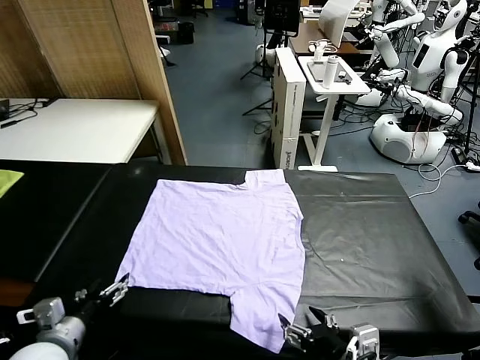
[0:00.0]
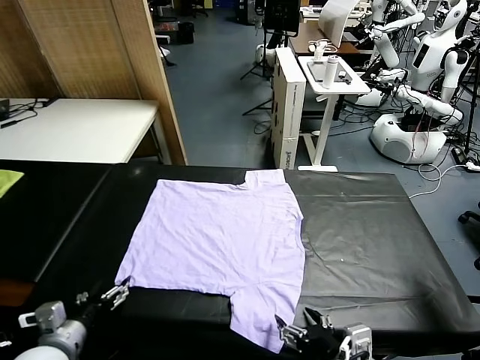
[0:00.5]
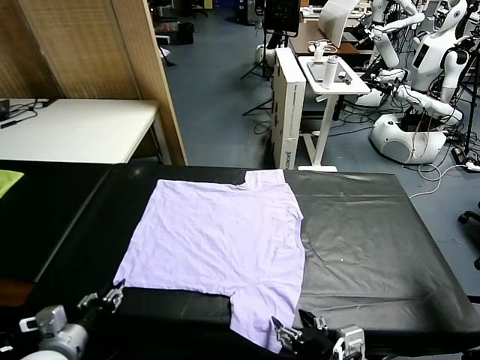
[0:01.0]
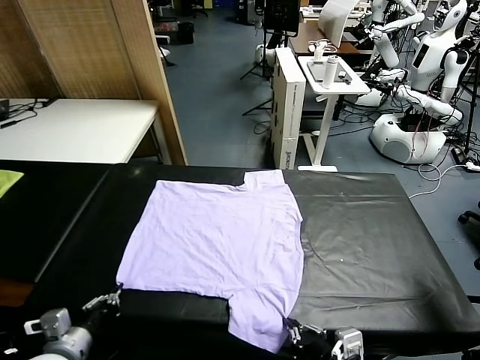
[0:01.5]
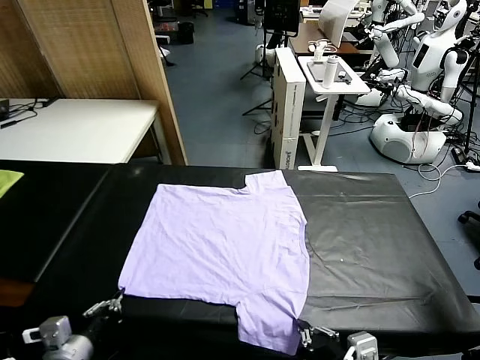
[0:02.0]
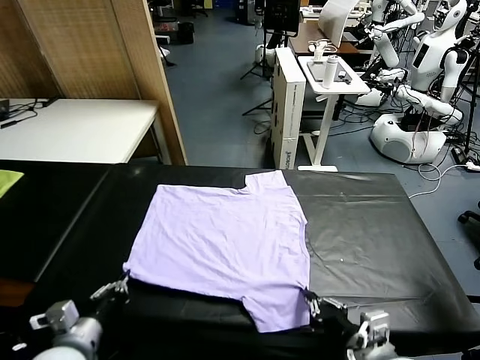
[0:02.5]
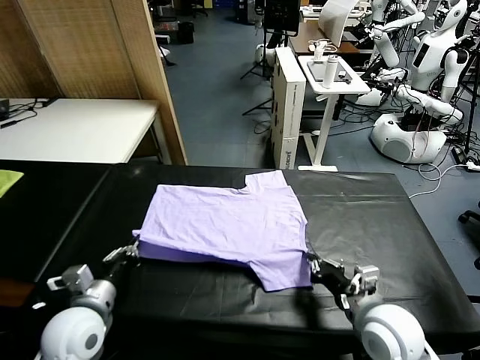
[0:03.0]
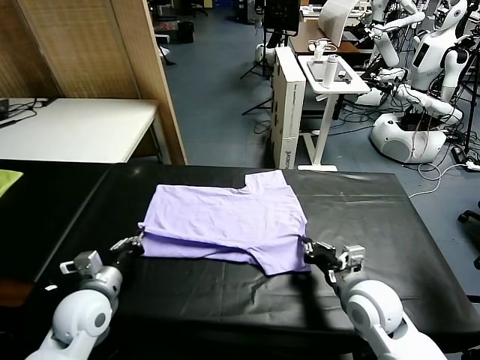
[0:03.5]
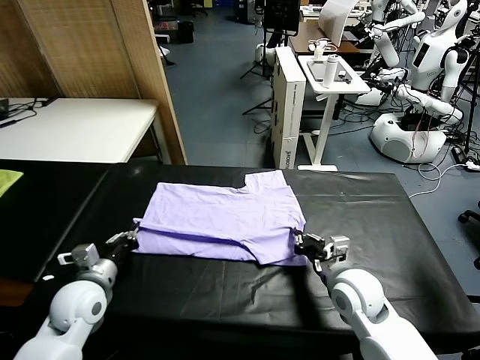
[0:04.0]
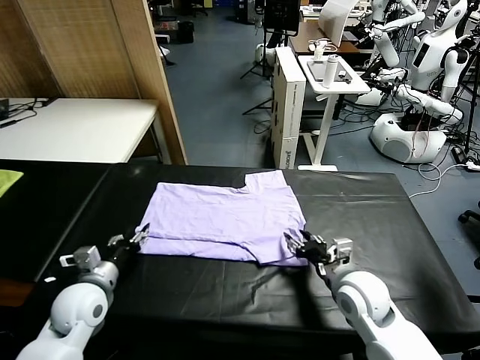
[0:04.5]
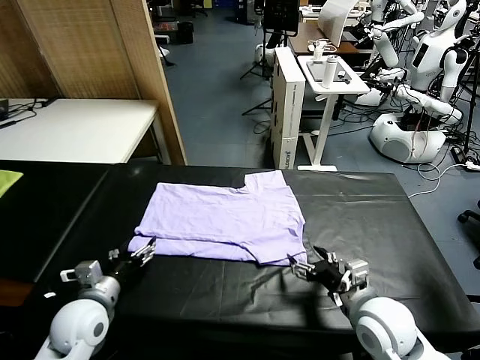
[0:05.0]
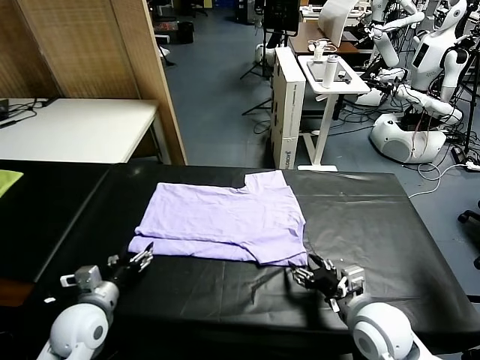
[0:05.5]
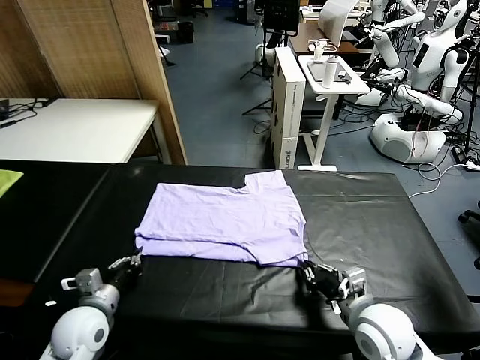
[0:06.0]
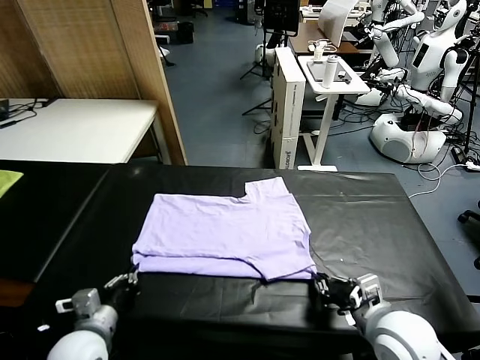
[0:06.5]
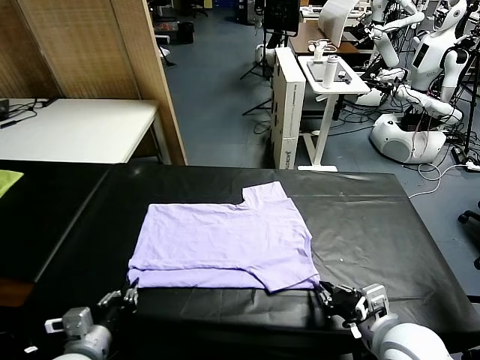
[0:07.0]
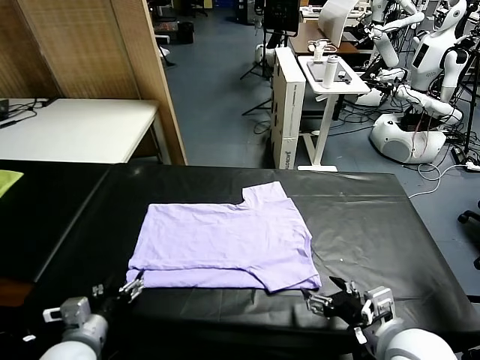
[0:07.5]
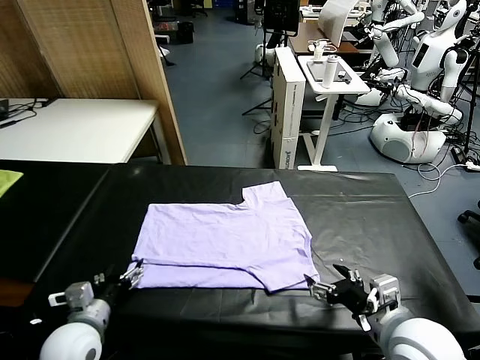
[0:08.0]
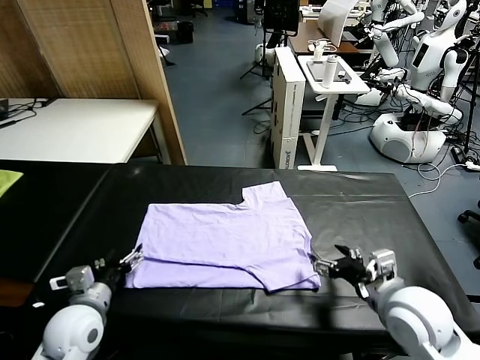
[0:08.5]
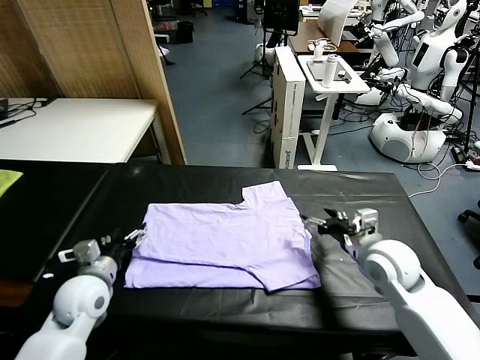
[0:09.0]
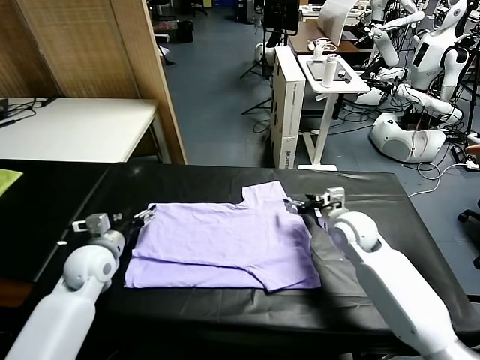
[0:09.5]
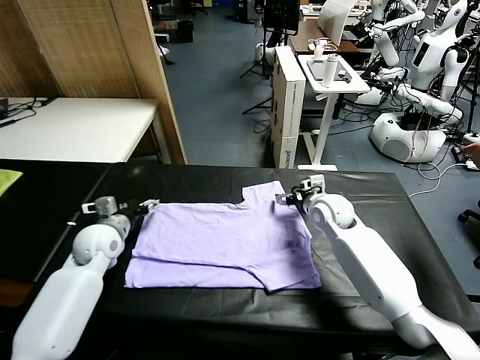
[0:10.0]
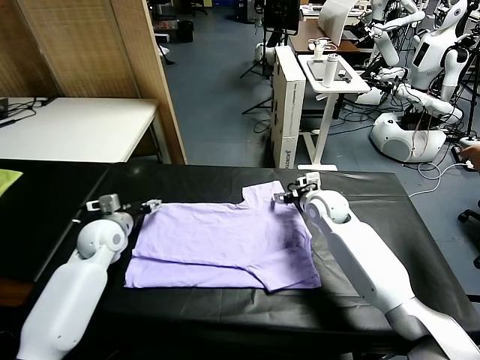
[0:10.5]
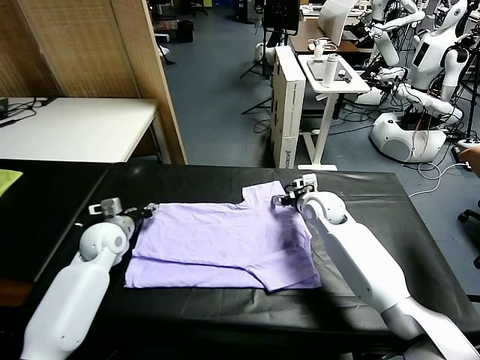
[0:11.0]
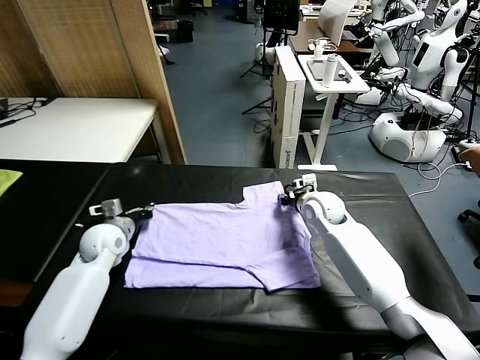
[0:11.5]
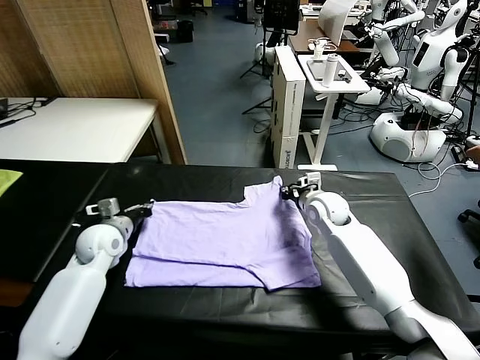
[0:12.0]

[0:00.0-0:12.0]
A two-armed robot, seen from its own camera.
Task of the whole recording: fold and organize the clothes.
Step, 0:00.0 to 0:01.5: use both grippers simultaneously to clamp the lower edge of the clothing fabric.
Step, 0:02.0 to 0:04.5: use both grippers to drag the lower edge of the fabric forward and fold it over the upper edge.
Step, 0:05.0 to 0:07.0: Drag the clothes downward with both gripper.
Step, 0:07.5 to 0:11.5: use both grippers simultaneously to clamp the upper edge of the clothing fabric.
0:02.0 to 0:04.0: Both grippers move forward, some 15 cm.
0:04.0 to 0:06.0: The right gripper travels backward by approximately 10 cm, and opens and closes again. The left gripper moves roughly 5 cm, and opens, then closes once more.
0:06.0 to 0:08.0: The left gripper travels backward and back again, roughly 10 cm each way, and opens its fingers, while the right gripper moves some 5 cm, and opens its fingers.
0:08.0 to 0:10.0: The grippers both shift forward by approximately 25 cm.
0:10.0 to 0:12.0: The right gripper closes up; the left gripper closes.

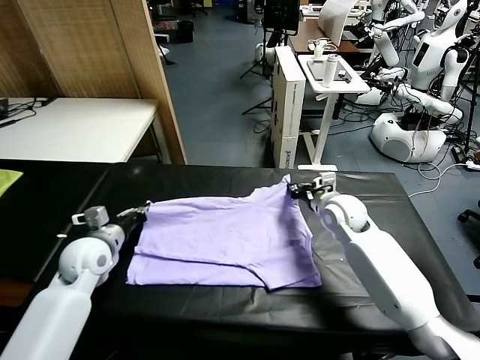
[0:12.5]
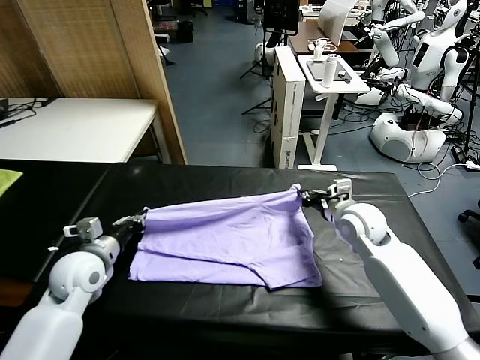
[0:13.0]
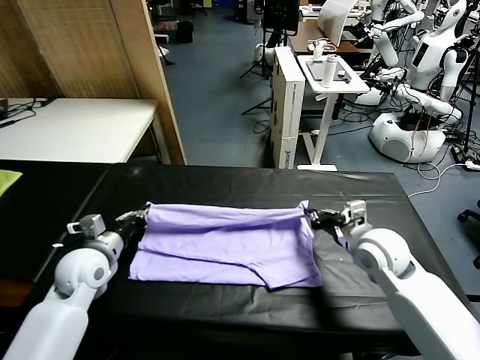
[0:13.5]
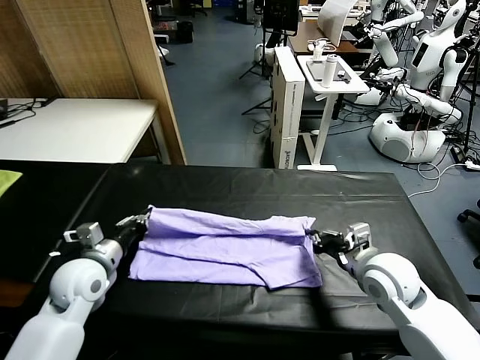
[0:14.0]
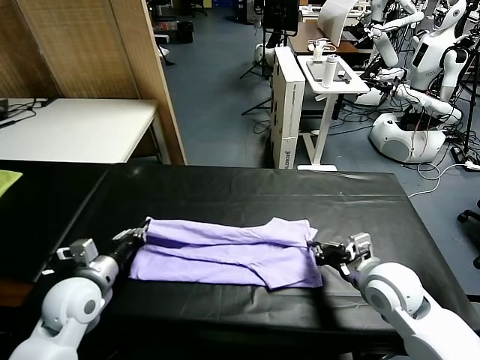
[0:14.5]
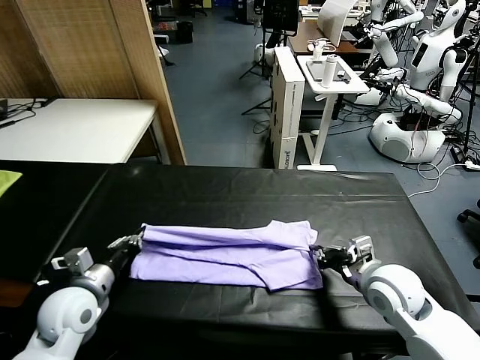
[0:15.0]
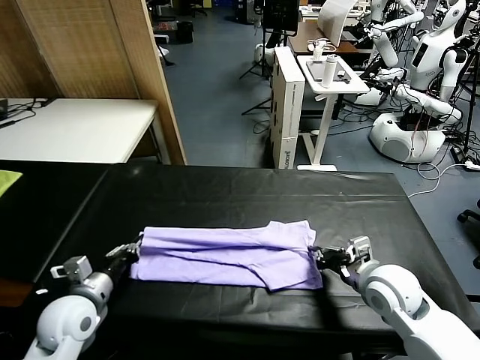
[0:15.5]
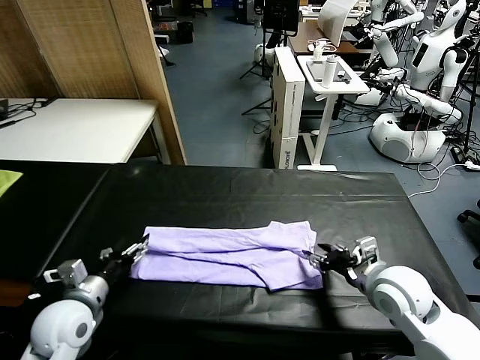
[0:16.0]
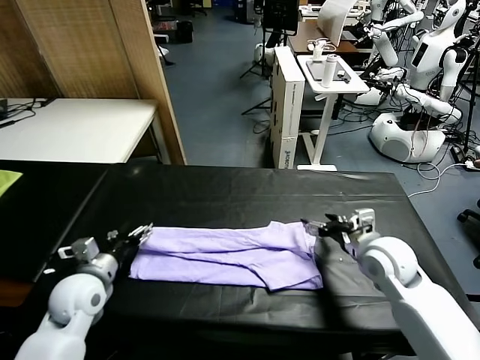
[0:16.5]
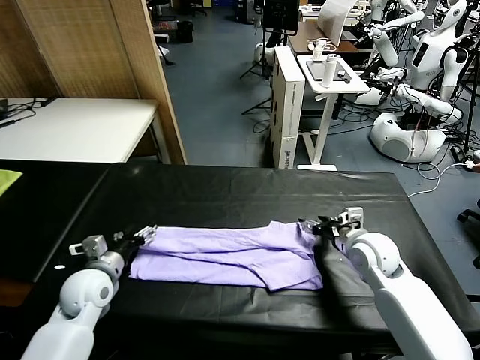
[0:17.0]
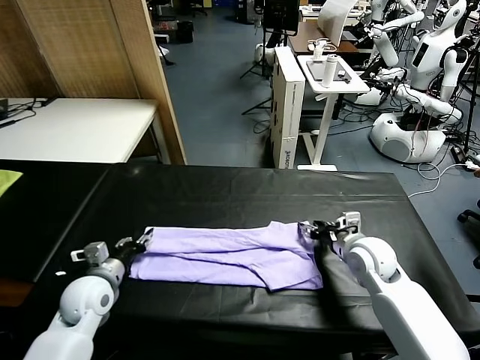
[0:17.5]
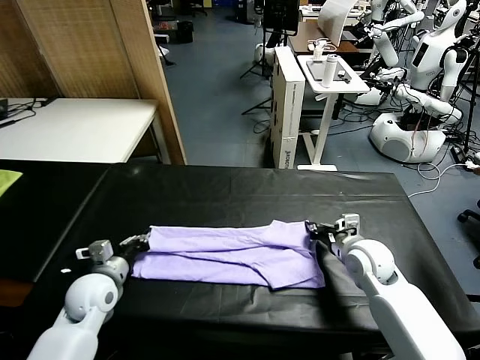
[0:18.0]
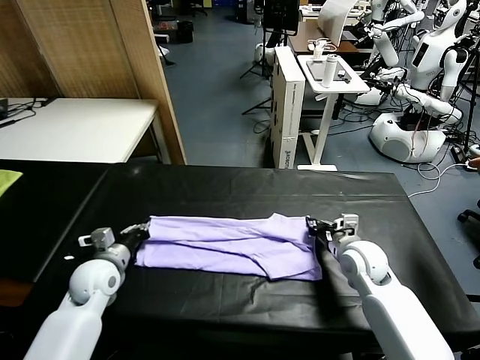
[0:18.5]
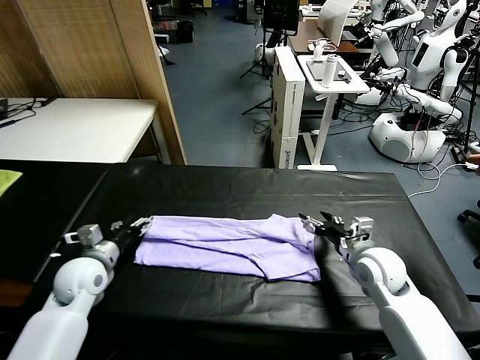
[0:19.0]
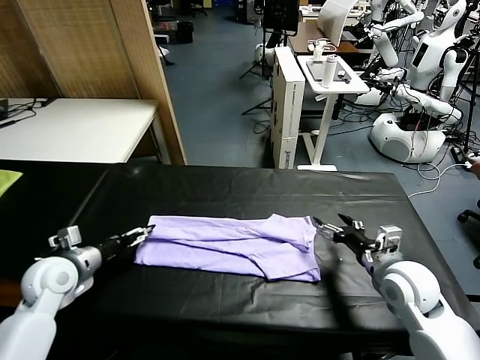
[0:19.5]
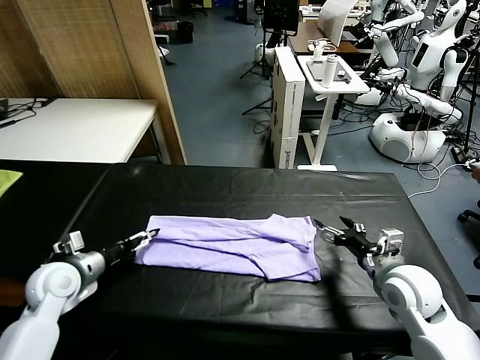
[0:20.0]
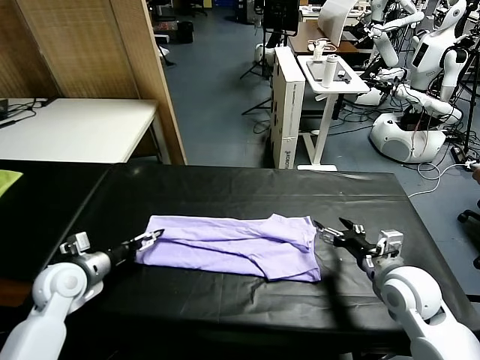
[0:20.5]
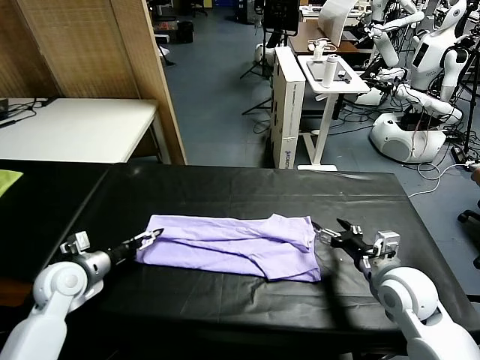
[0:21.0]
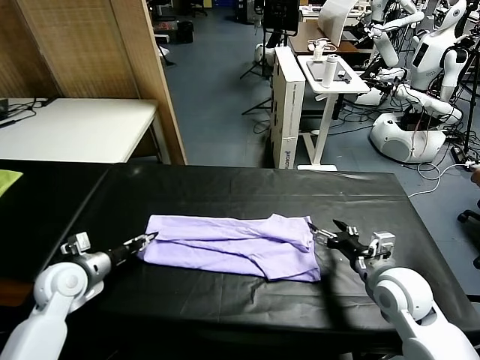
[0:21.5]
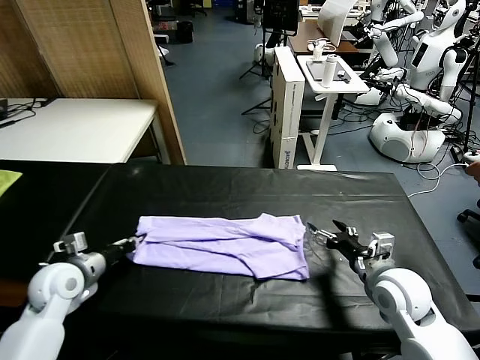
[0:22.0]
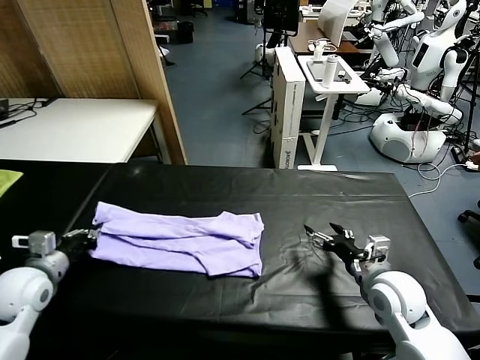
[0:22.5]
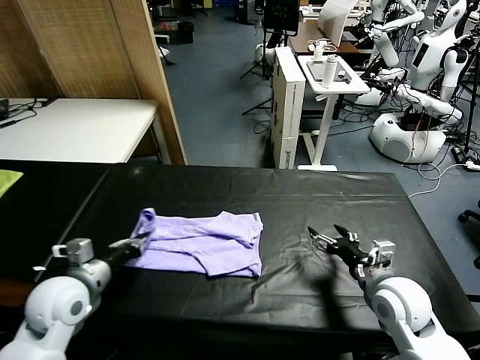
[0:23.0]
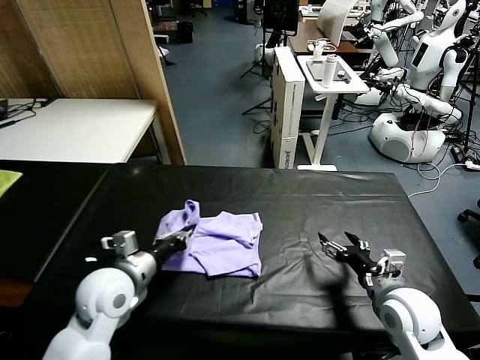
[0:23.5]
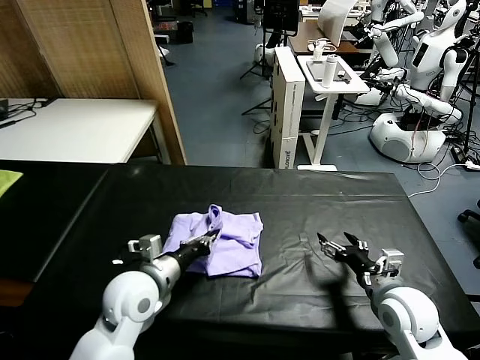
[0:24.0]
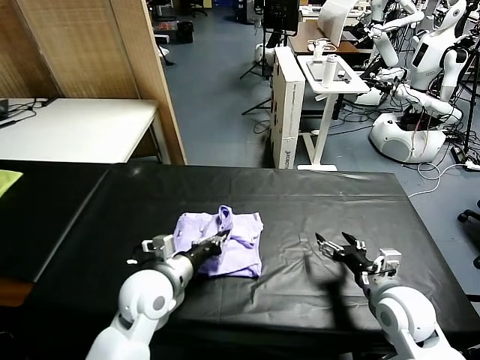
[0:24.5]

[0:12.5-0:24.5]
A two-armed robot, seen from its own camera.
Task of the whole recording: fold and organize the clothes.
Step, 0:12.5 to 0:16.0: use both grippers to drag the upper edge of the fabric backward and fold it over the lower edge.
Step, 0:16.5 to 0:21.5: use the left gripper to clamp the left edge of the fabric.
0:12.5 to 0:14.5: The left gripper heads backward, covering about 10 cm, while the right gripper heads backward, covering approximately 15 cm.
0:14.5 to 0:16.5: The left gripper opens; the right gripper shifts some 10 cm forward, and opens.
0:16.5 to 0:18.5: The left gripper changes place by about 5 cm, and closes. The right gripper closes its fingers.
0:18.5 to 0:20.5: The left gripper goes roughly 5 cm to the left, and opens. The right gripper travels backward by about 10 cm, and opens its fingers.
0:20.5 to 0:22.5: The left gripper changes place by about 5 cm, and closes up.
0:22.5 to 0:24.5: The left gripper is displaced to the right by approximately 25 cm.

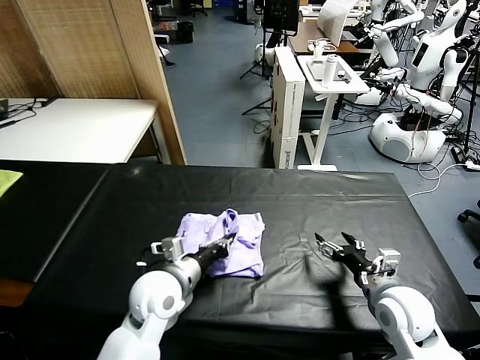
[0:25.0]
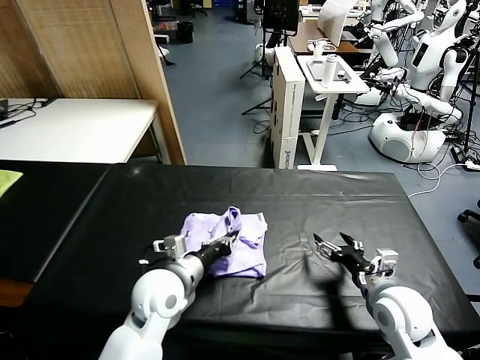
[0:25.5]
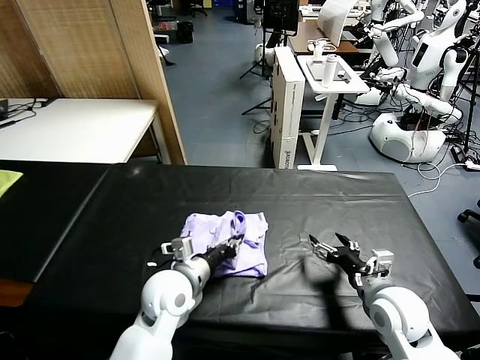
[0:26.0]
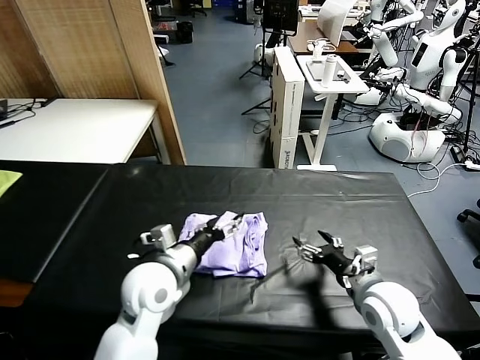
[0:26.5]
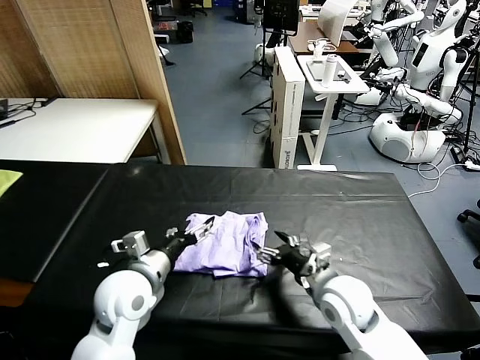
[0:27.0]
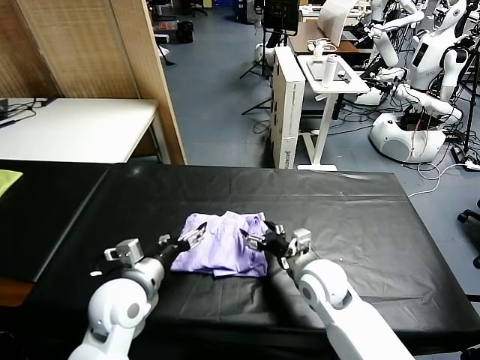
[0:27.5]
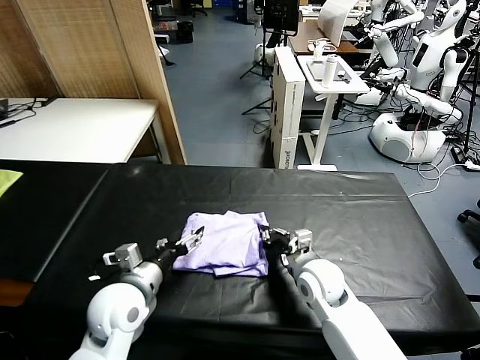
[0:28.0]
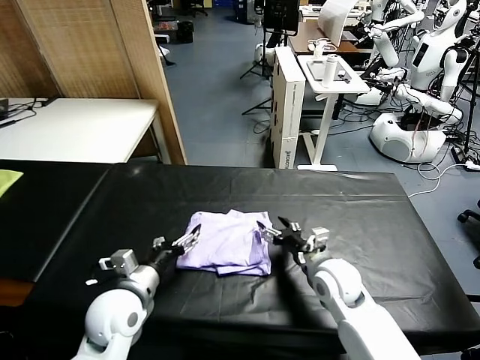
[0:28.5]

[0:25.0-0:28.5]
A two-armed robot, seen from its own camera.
Task of the whole recording: fold and organize the clothes.
0:25.0 to 0:27.0: The left gripper changes place by roughly 5 cm, and opens its fingers; the right gripper moves to the left, some 10 cm.
0:27.0 to 0:28.5: The right gripper ends up roughly 5 cm from where it was, and closes, then reopens.
